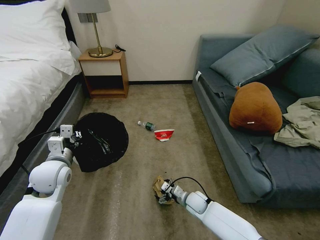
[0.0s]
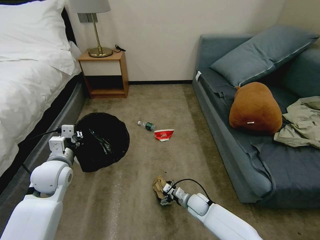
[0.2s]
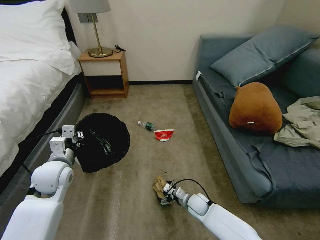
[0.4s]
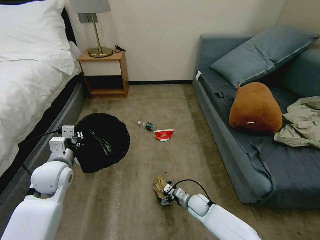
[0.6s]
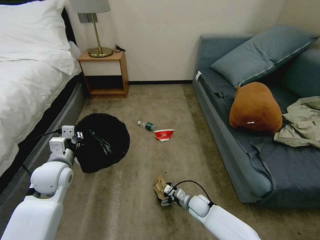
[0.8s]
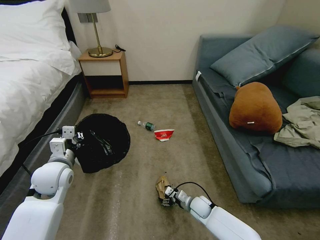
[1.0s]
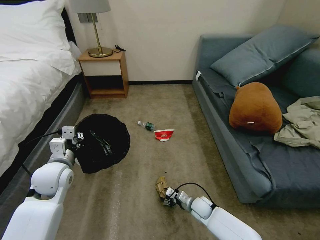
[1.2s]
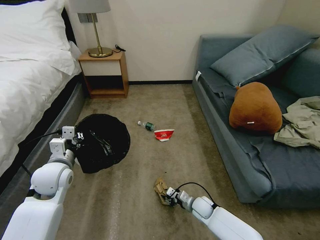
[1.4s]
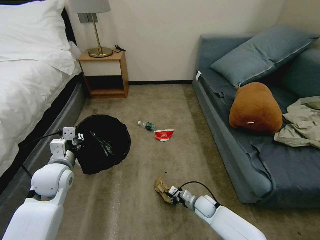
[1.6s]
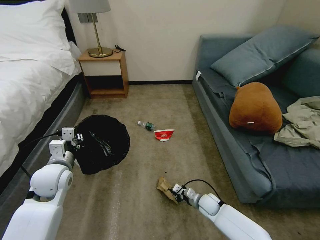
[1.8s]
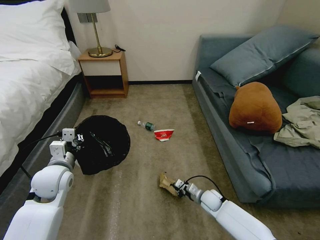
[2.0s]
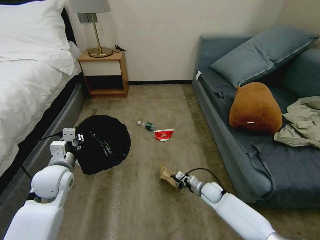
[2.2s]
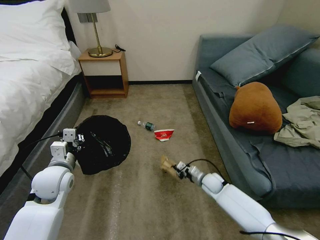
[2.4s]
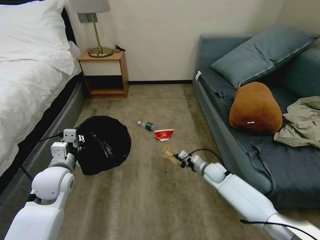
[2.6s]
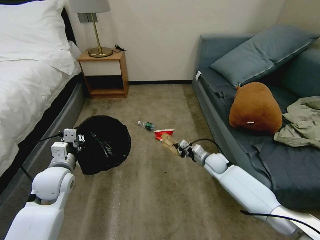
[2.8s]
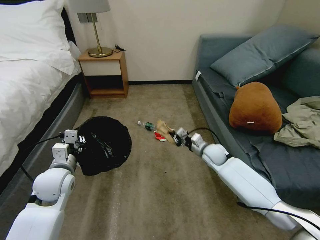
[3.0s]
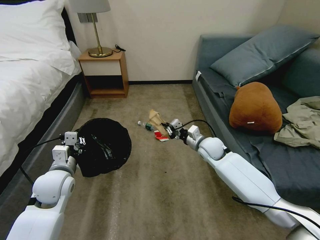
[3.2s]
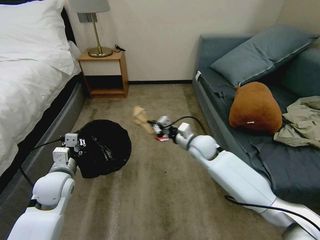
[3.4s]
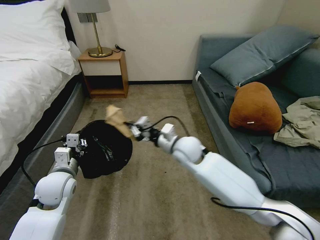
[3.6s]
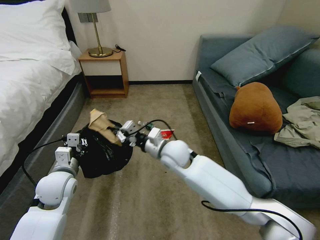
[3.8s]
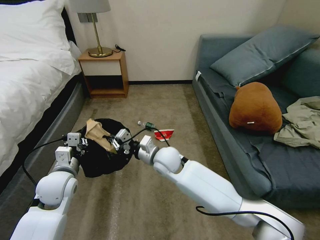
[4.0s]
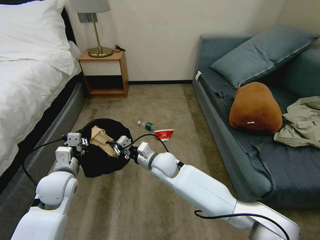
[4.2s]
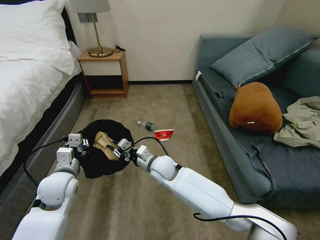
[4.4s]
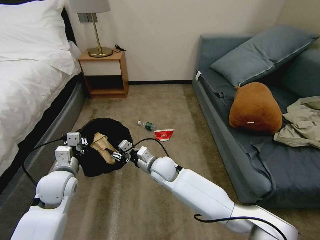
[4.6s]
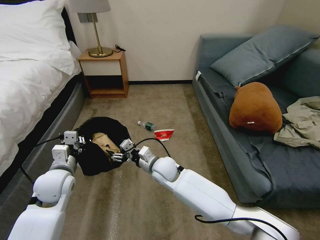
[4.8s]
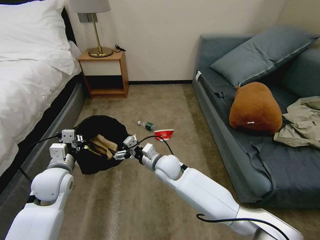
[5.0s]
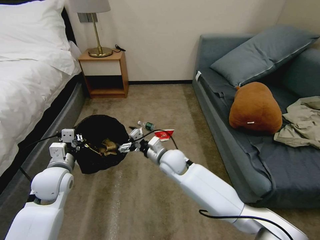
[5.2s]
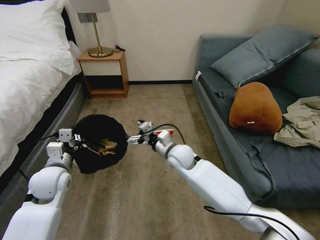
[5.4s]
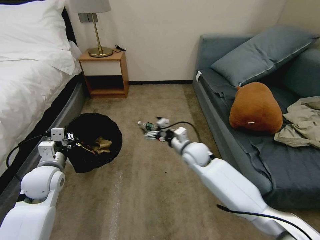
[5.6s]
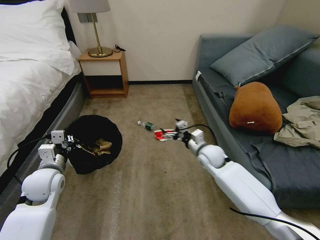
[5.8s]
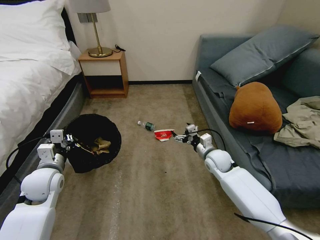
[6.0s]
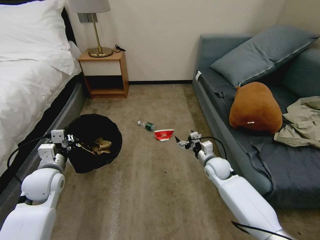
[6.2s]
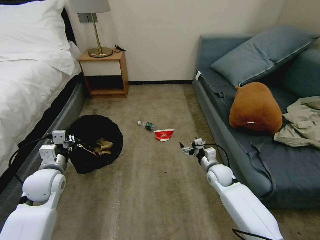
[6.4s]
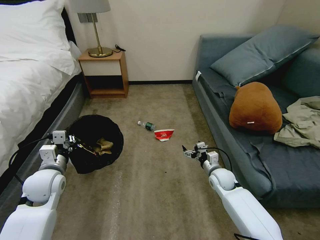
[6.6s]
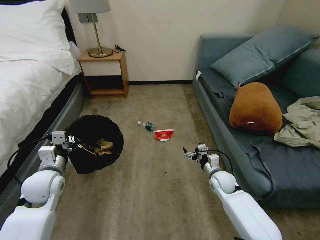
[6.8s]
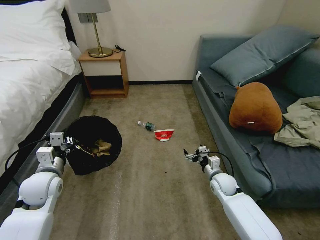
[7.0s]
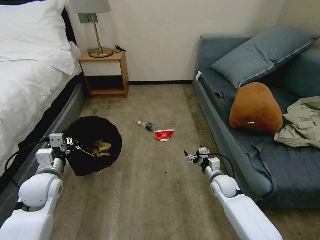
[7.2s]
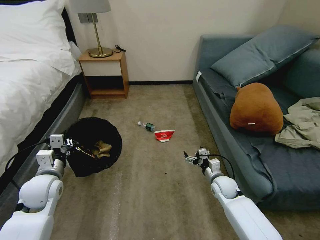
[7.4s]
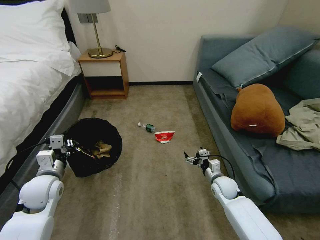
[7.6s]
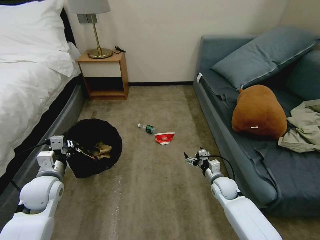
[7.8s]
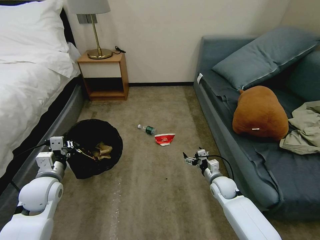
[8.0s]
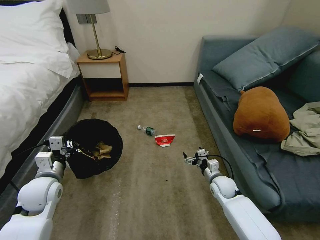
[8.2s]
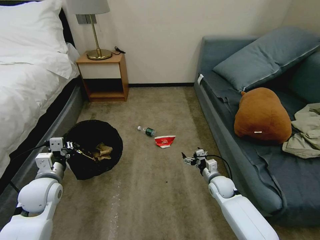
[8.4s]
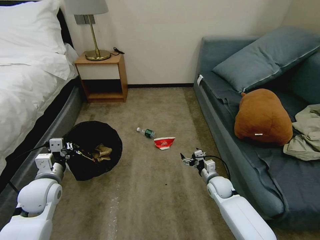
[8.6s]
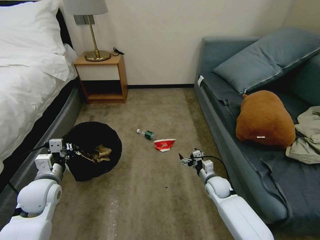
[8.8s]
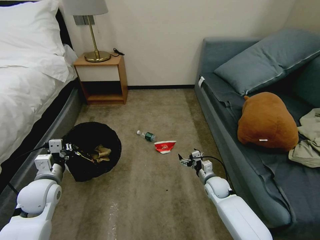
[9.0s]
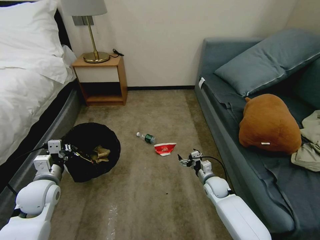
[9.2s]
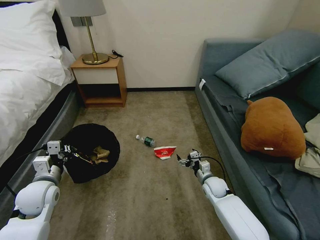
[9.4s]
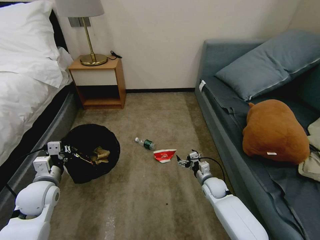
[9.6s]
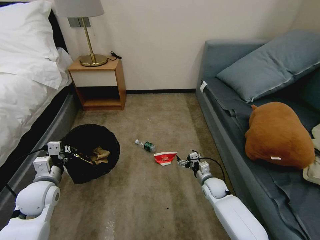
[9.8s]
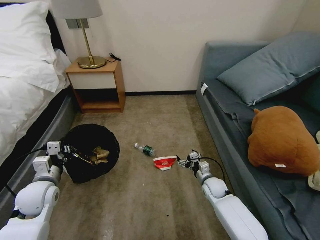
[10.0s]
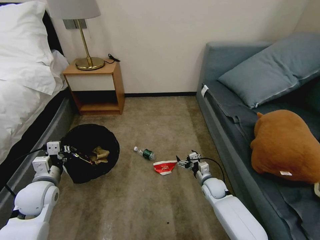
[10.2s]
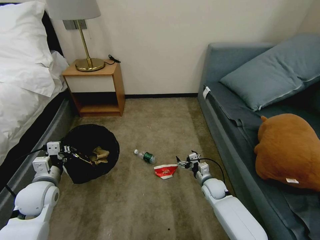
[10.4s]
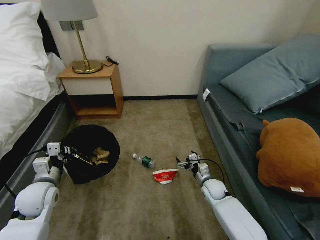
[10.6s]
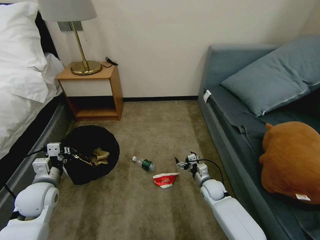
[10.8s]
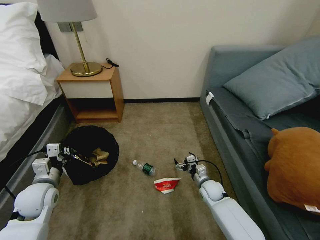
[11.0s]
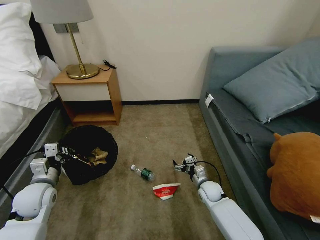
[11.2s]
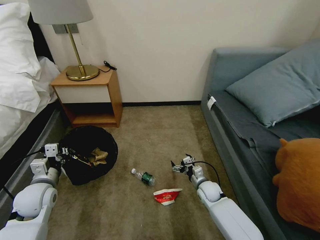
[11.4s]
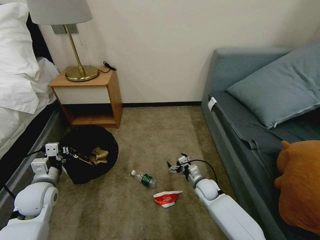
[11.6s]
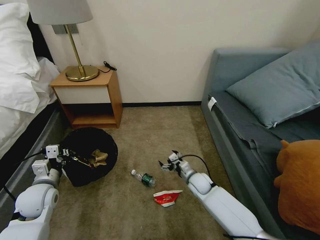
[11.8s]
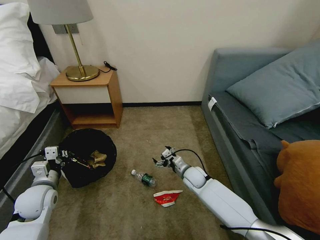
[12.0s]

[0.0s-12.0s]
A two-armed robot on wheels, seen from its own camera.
Task of the whole recording: Pick up the trash bin, then pick up the garbage on the floor and place it into the trash bin.
0.0s to 1.6s: The right gripper closes up.
1.6s to 3.0s: The right gripper shifts about 25 cm upward and forward.
3.0s to 4.4s: The right gripper shifts roughly 25 cm to the left.
4.4s to 6.0s: The left gripper changes place by about 5 cm, while the right gripper goes some 20 cm to the right, and opens.
6.0s to 7.6s: The right gripper travels downward and backward by about 15 cm.
10.4s to 12.0s: The right gripper travels to the left by approximately 10 cm.

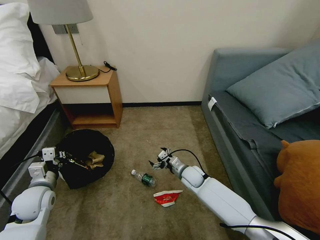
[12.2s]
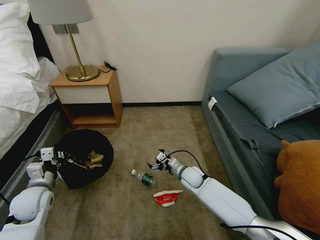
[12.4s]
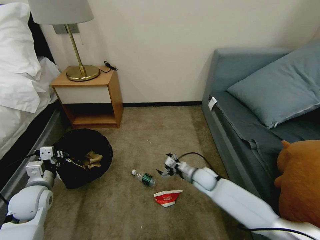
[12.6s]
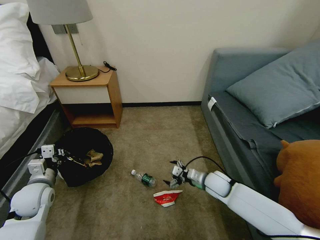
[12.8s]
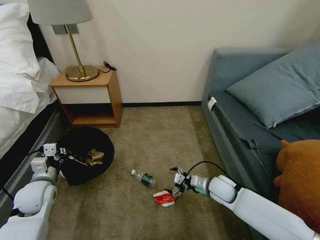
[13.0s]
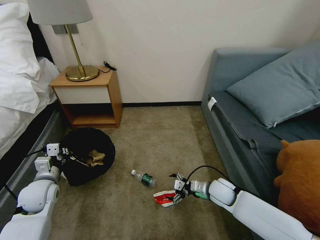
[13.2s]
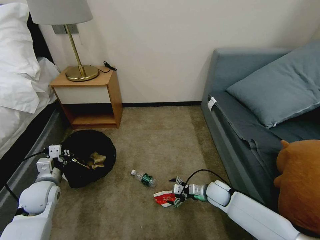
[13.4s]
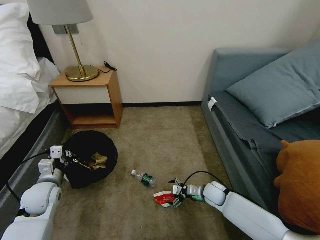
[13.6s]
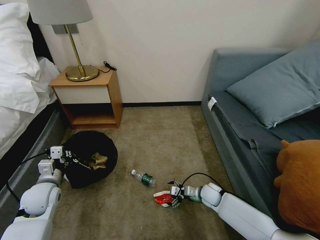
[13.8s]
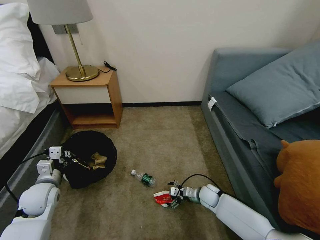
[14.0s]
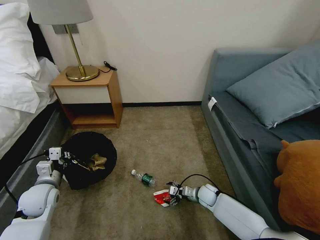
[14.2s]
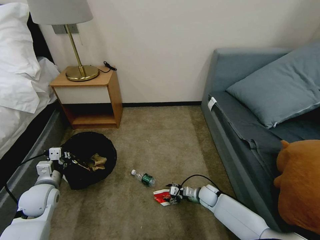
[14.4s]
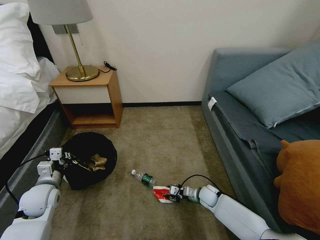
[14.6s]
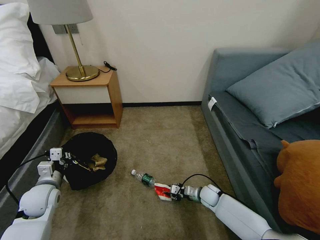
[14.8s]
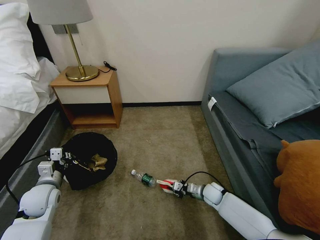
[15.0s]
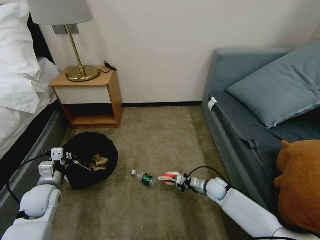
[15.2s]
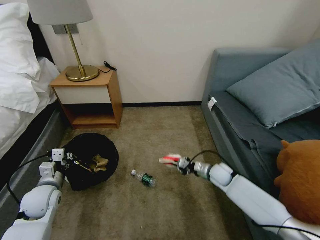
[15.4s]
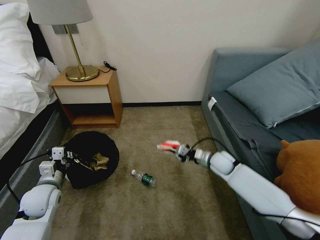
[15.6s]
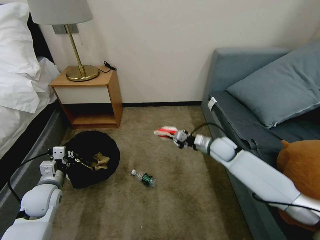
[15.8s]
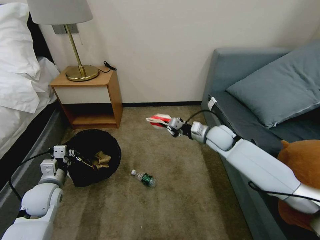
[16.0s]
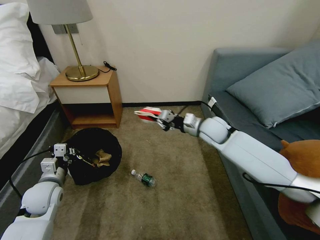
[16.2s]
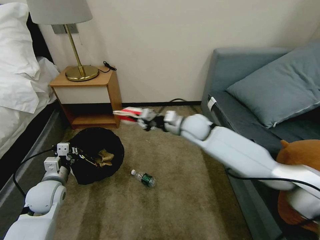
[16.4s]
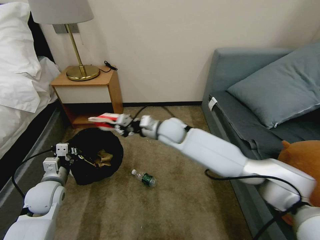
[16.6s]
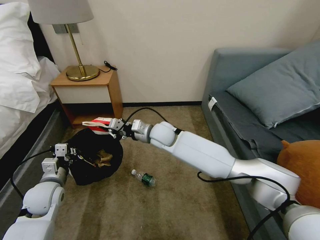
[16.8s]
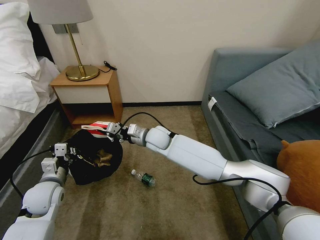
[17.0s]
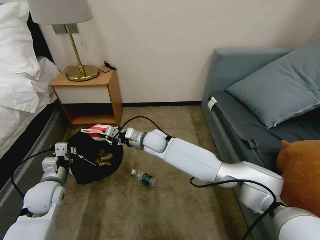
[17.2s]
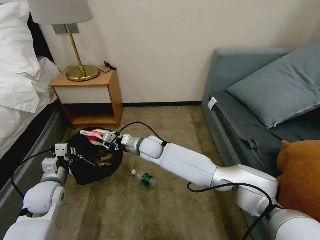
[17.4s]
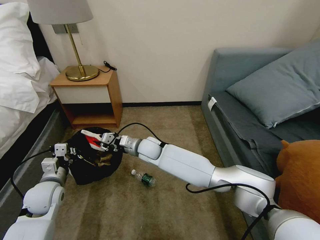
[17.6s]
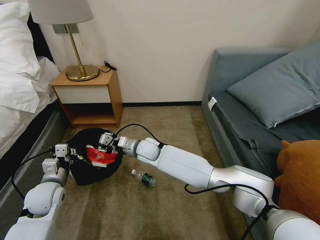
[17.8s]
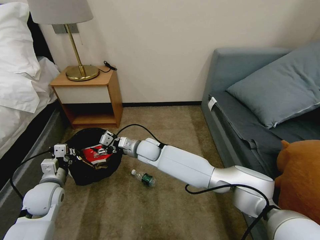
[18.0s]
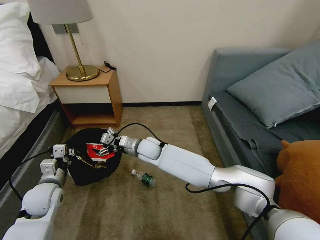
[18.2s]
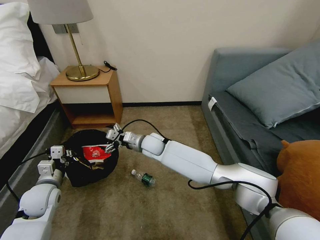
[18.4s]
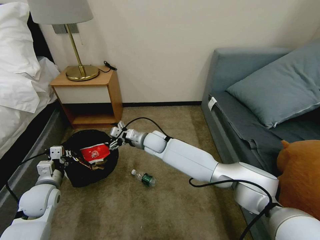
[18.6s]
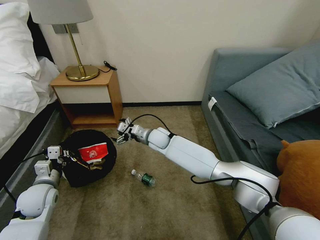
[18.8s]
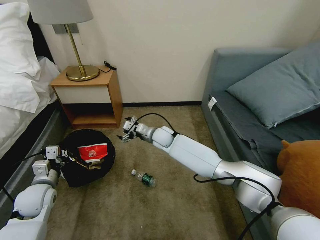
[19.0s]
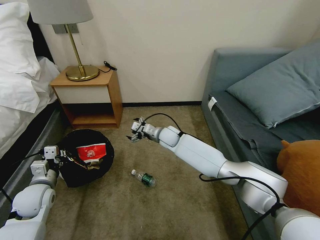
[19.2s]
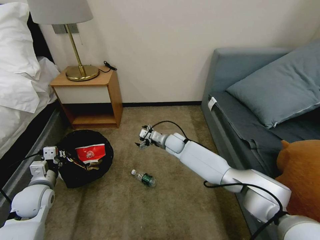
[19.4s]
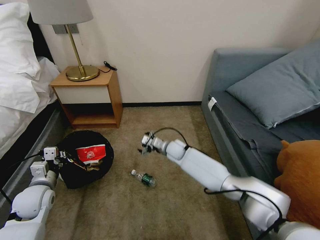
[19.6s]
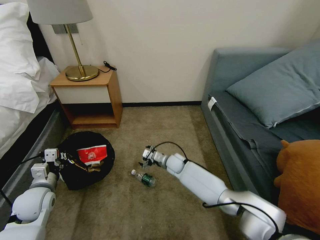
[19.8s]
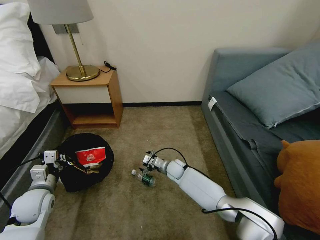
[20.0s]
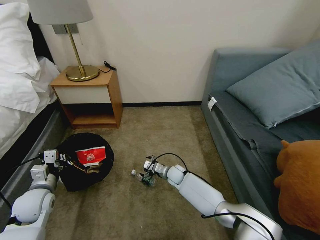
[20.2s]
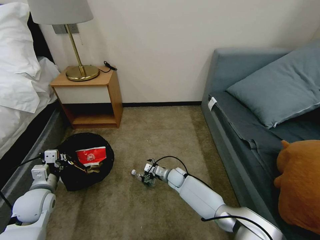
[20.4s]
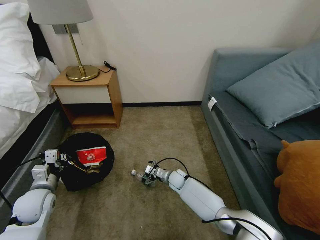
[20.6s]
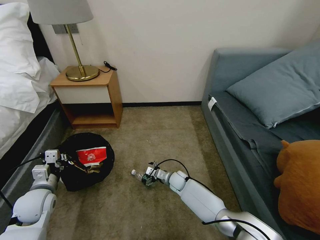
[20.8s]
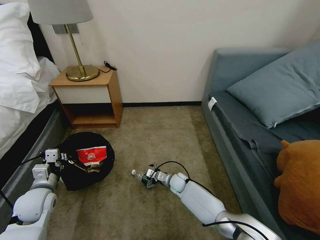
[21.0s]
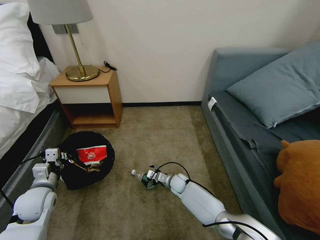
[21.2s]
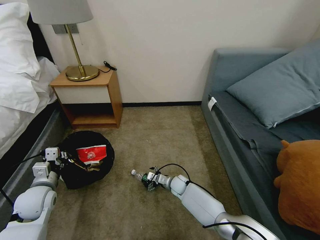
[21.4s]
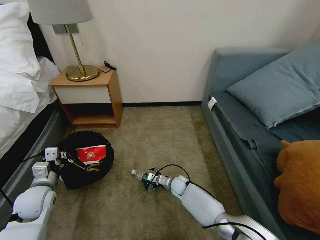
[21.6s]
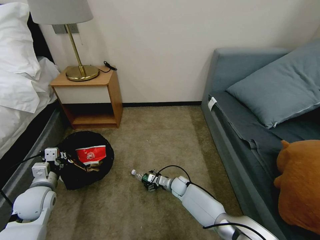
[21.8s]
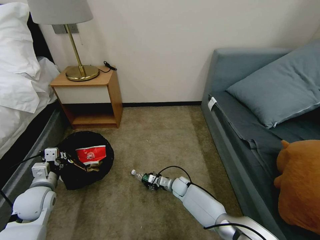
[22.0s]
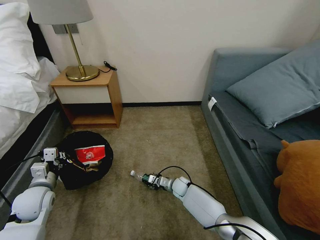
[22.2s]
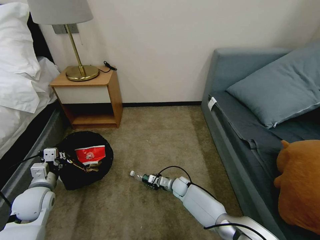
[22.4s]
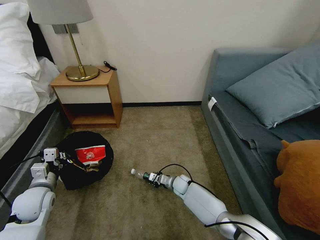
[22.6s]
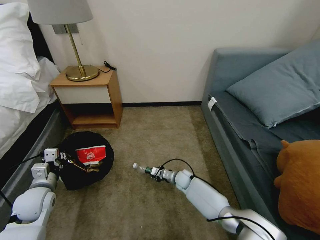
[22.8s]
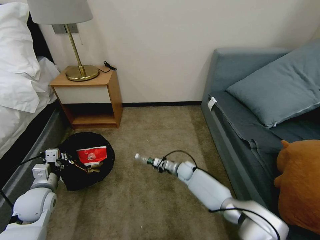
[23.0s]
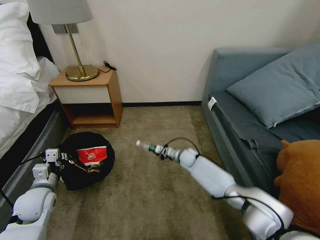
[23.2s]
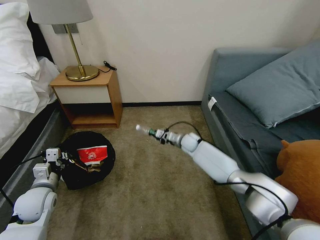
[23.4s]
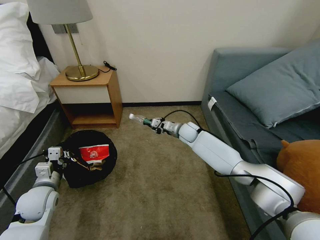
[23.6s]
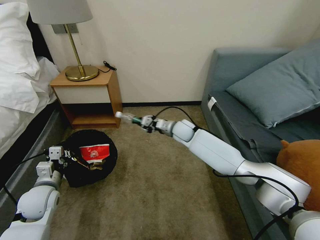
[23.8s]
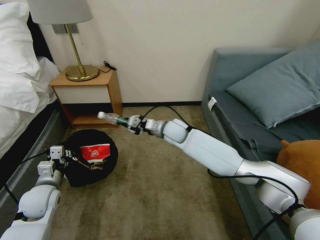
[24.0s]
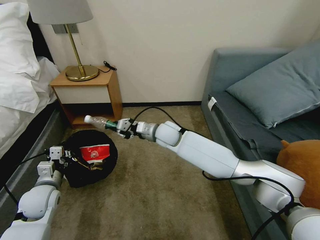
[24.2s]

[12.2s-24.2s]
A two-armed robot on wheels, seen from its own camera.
Task of the whole recording: Pick up the trash bin, then pick up the garbage on the floor and place it into the trash bin.
12.2s to 13.8s: The right gripper is displaced to the right and downward by approximately 10 cm.
13.8s to 15.2s: The right gripper closes up.
15.2s to 16.6s: The right gripper heads upward and to the left, covering roughly 35 cm.
16.6s to 18.2s: The right gripper travels to the left and downward by about 20 cm, and opens up.
18.2s to 19.8s: The right gripper travels downward and to the right by about 20 cm.
19.8s to 21.2s: The right gripper is displaced downward and backward by some 10 cm.
21.2s to 22.6s: The right gripper closes its fingers.
22.6s to 24.2s: The right gripper moves upward, roughly 30 cm.
